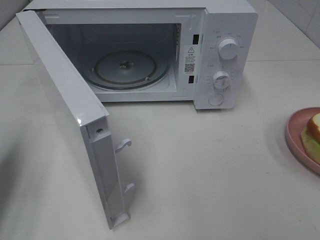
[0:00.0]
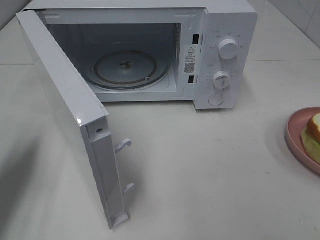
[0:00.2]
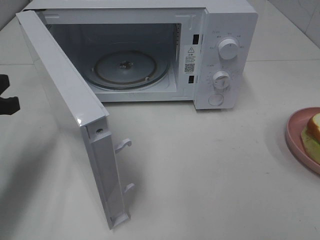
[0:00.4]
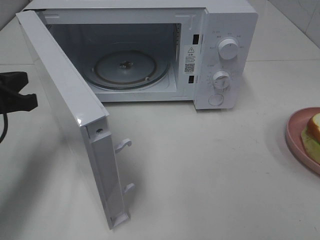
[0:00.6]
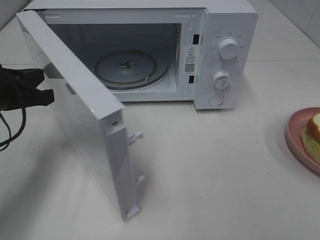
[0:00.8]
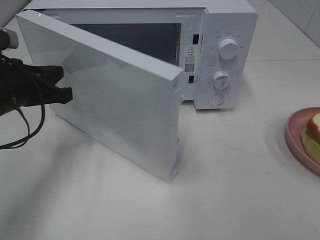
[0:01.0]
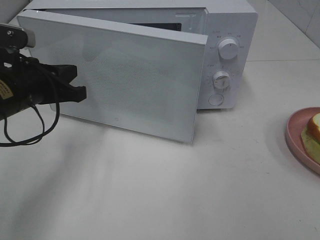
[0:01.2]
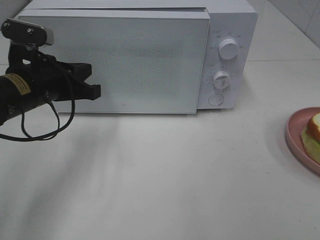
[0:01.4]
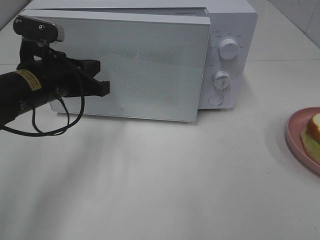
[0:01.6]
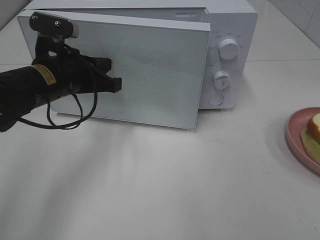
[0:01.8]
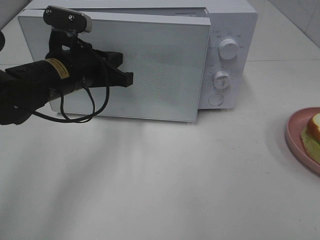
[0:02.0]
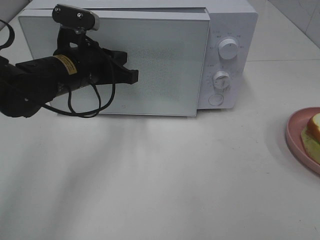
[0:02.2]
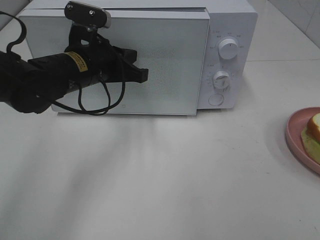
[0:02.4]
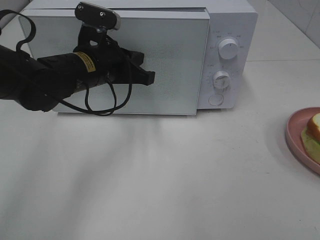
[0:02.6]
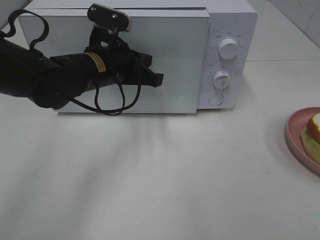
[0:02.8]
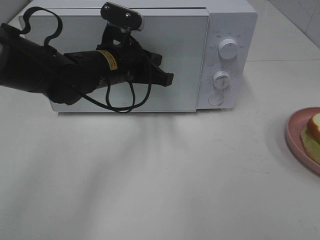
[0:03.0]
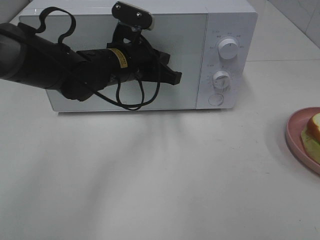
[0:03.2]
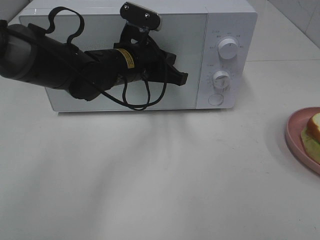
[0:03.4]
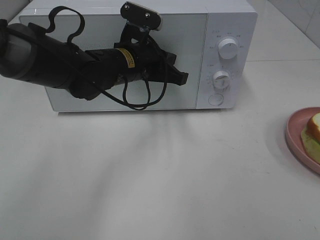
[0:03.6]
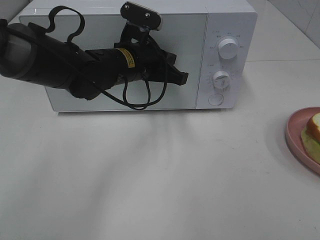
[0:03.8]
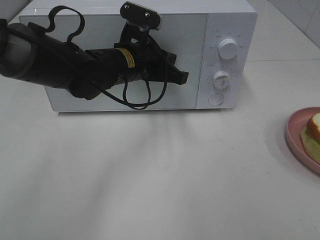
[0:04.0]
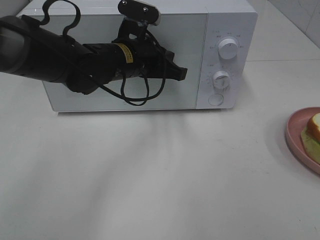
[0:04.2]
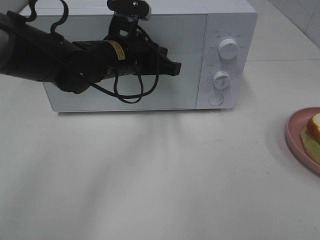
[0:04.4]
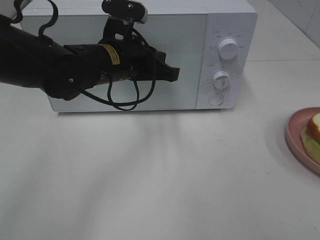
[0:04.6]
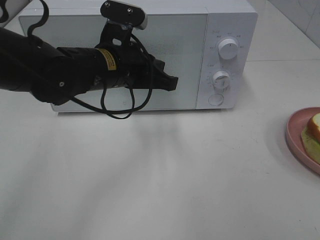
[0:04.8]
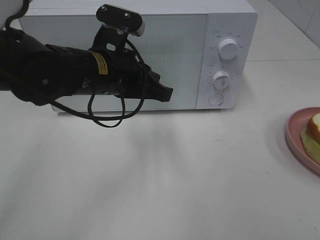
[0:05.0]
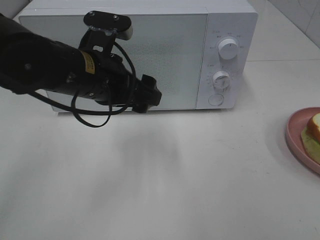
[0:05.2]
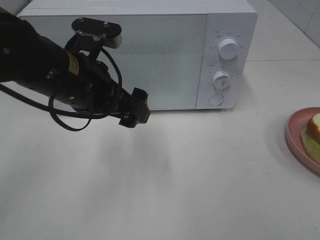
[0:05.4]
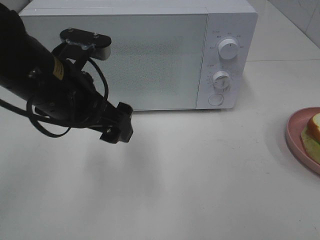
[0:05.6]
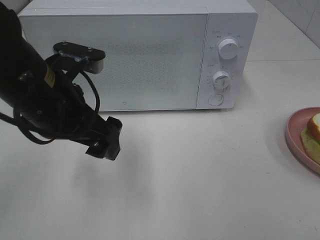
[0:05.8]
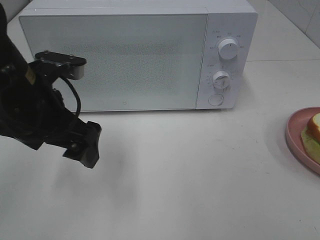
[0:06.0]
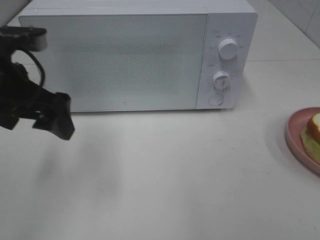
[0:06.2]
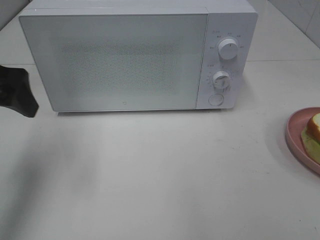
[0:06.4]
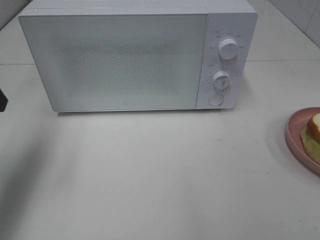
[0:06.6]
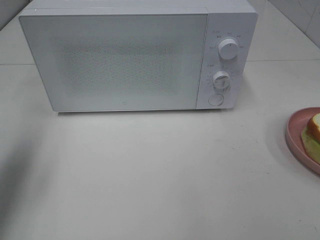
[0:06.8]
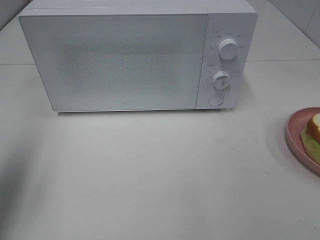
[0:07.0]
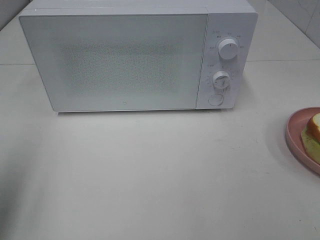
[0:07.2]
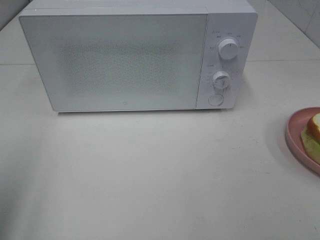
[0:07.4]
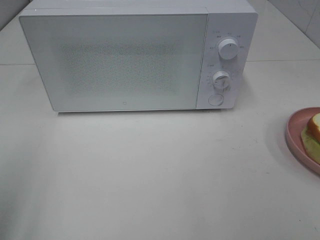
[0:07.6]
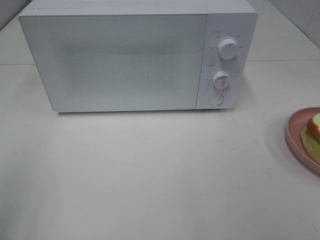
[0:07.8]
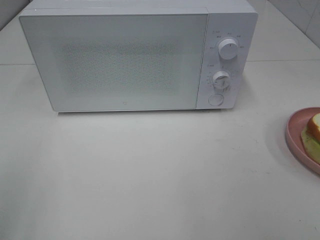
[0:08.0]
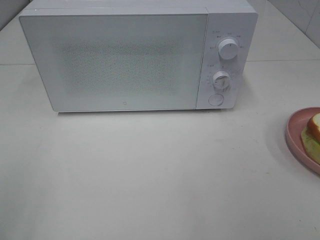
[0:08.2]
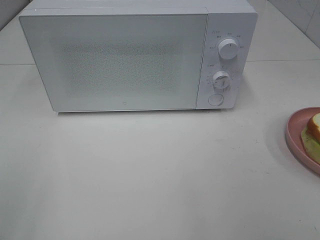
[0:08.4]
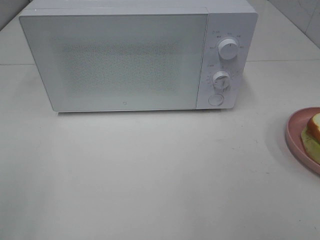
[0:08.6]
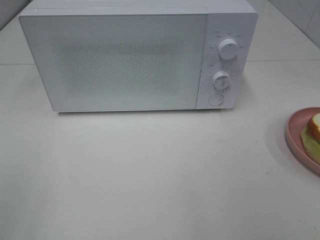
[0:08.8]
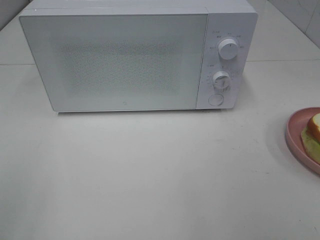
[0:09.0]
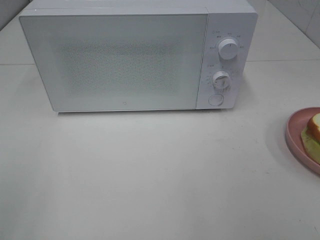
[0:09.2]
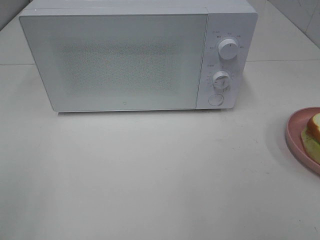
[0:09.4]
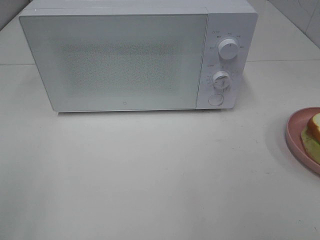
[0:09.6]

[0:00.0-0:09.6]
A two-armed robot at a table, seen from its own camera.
Task of the whole recording: Heat Sandwich.
Step, 0:00.0 to 0:04.6: Left hand: close the microwave door.
0:00.0 to 0:01.6: The left gripper travels to the right and forward by some 20 cm.
0:01.6 to 0:03.2: The left gripper shifts roughly 15 cm to the right and forward.
0:03.2 to 0:04.8: The left gripper goes approximately 5 cm backward.
0:04.8 to 0:06.4: The left gripper shifts approximately 20 cm to the left and upward, and opens up.
0:06.4 to 0:08.0: The left gripper travels backward by about 25 cm.

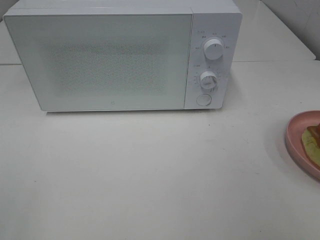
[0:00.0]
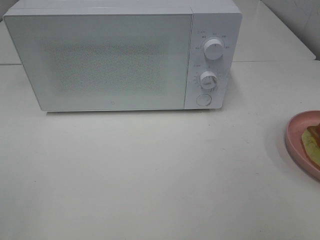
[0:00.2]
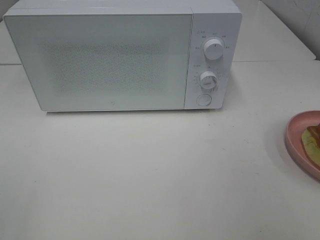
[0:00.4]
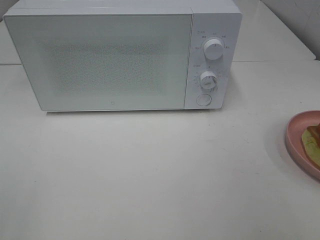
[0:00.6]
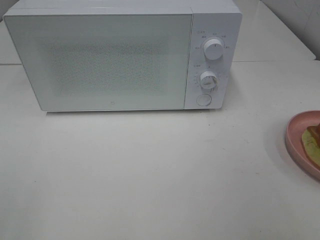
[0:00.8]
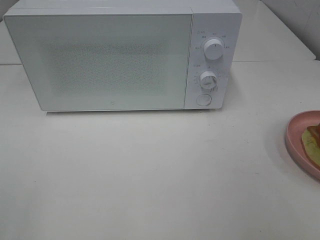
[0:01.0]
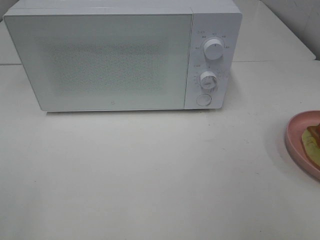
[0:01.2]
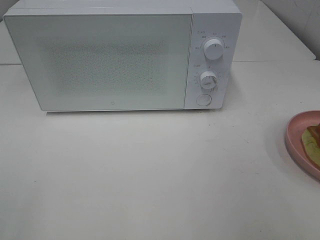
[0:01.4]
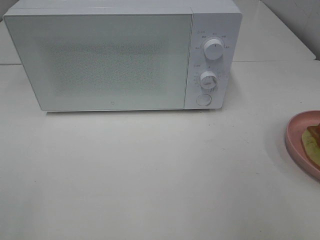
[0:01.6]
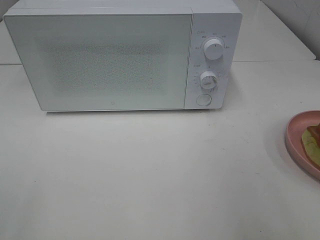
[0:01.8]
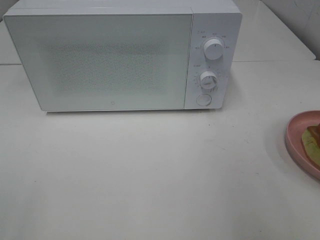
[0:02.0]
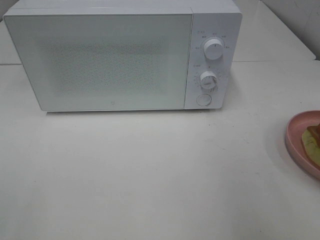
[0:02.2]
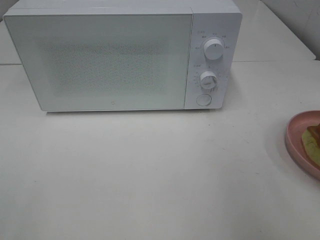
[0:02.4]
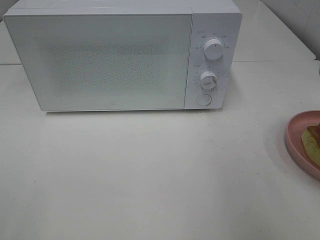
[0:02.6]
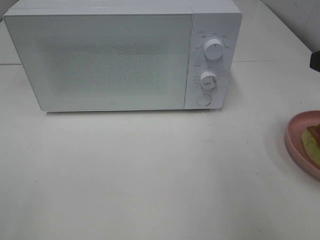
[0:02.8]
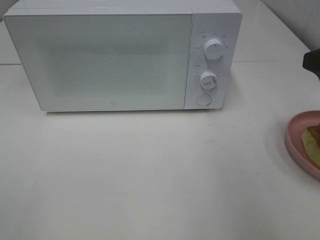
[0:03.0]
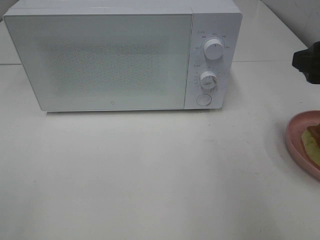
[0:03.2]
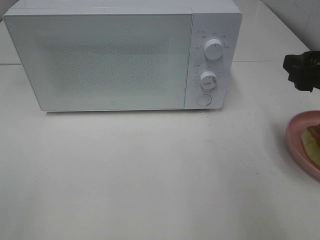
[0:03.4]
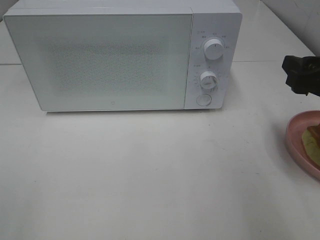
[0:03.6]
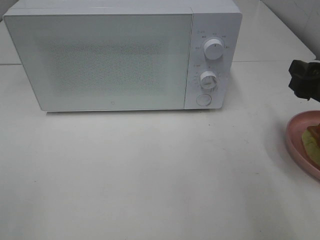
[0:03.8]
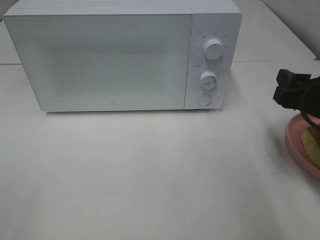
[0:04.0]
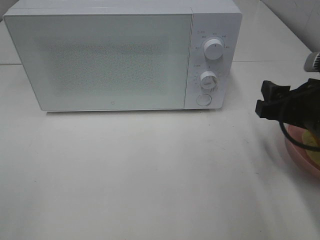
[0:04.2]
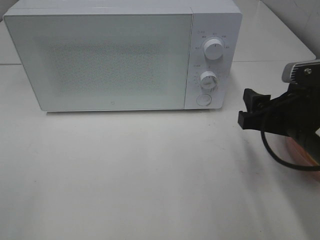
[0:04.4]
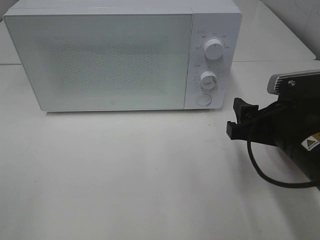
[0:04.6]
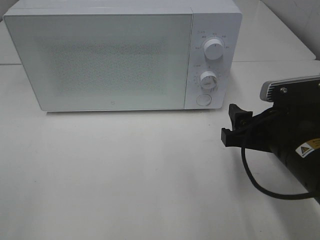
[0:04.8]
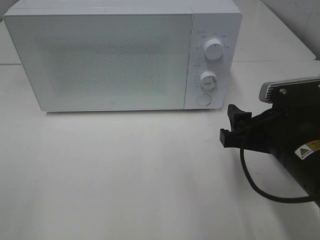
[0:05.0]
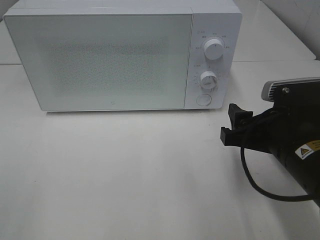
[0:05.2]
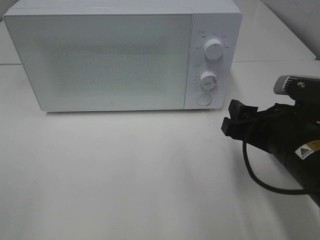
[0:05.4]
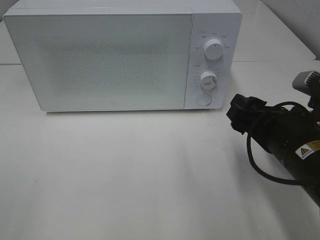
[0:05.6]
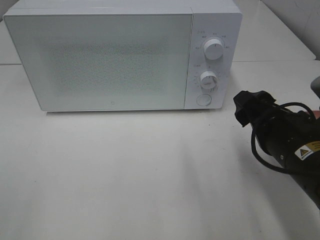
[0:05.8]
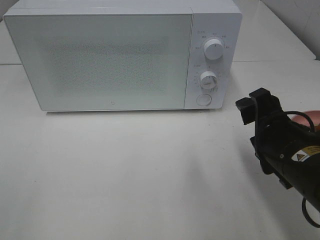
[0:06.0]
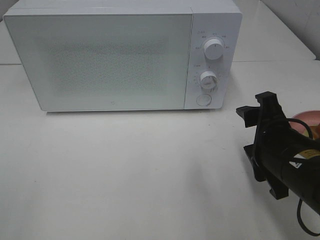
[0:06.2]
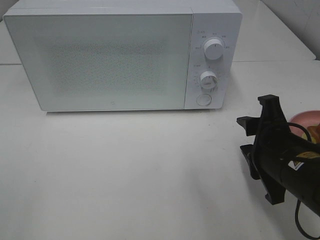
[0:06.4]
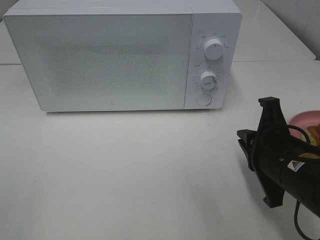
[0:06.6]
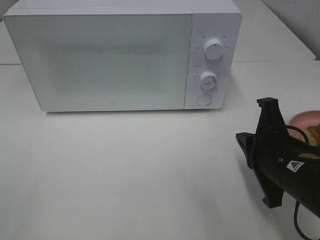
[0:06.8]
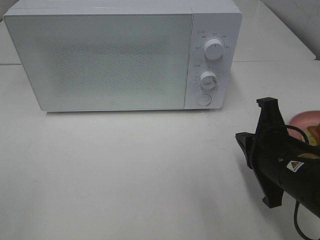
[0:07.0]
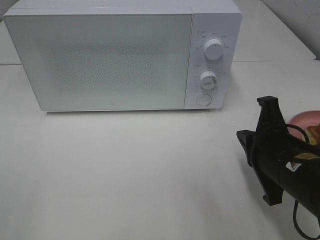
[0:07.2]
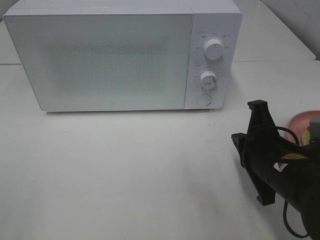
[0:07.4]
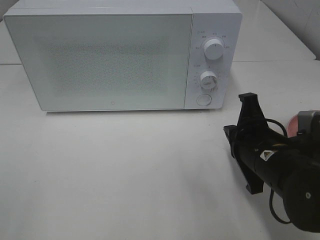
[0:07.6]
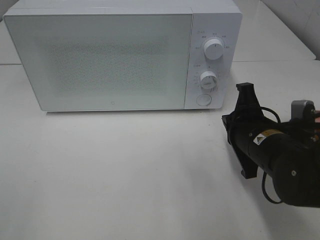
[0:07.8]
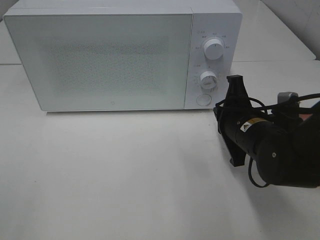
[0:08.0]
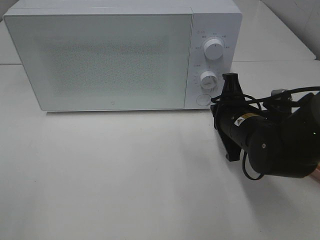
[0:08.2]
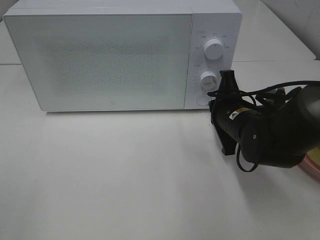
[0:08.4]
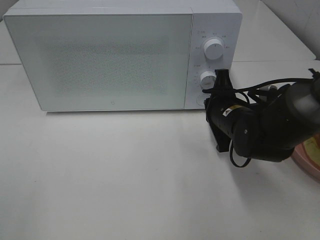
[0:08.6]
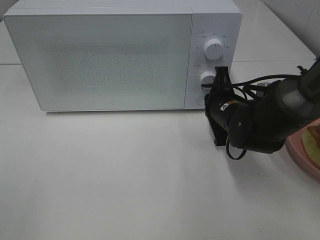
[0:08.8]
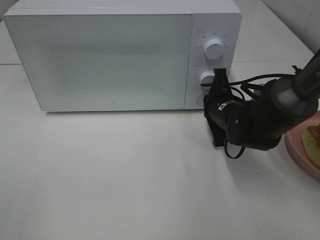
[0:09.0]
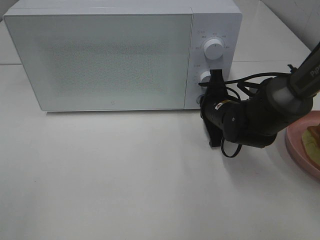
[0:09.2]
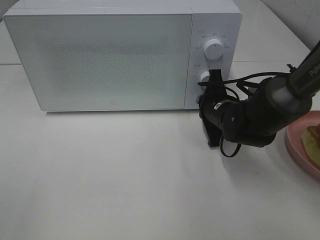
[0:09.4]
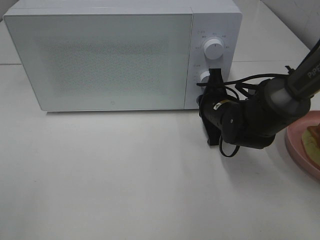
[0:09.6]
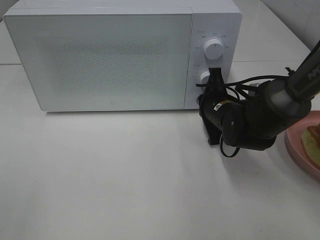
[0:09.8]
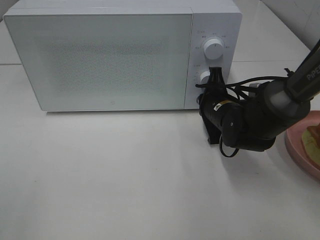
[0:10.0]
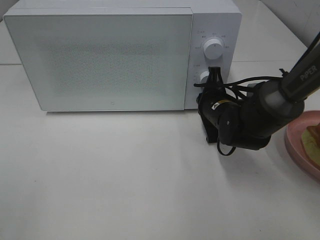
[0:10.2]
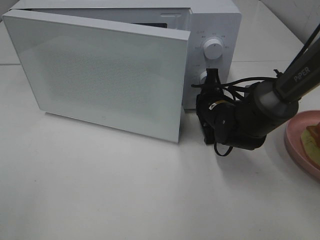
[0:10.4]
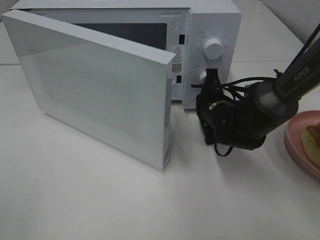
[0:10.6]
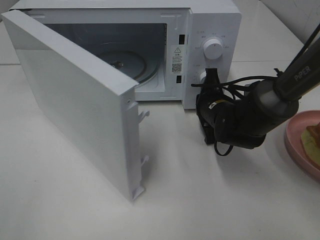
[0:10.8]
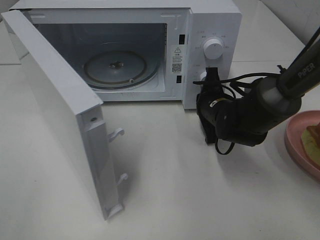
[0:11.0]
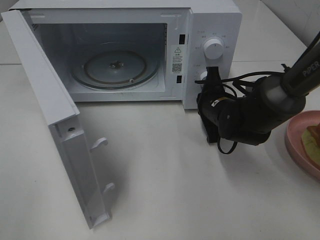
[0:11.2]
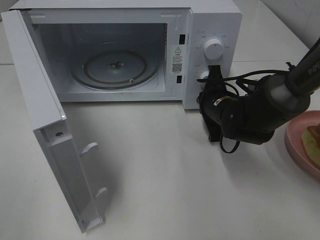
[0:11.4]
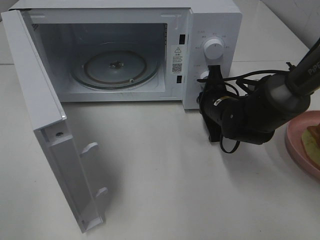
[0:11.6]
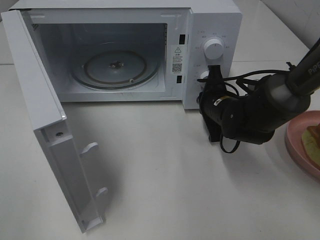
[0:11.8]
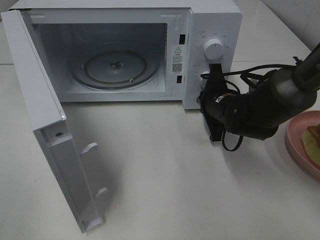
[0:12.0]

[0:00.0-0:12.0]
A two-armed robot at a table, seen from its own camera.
Task of the whole recording: Heat Sandwich.
0:03.0 to 0:04.4: The right gripper moves downward and to the left, about 10 cm.
0:06.0 to 0:07.6: The right gripper closes.
0:07.6 to 0:09.0: The right gripper goes approximately 15 cm forward.
0:09.0 to 0:10.4: The grippers stay close to where they were, moving slightly.

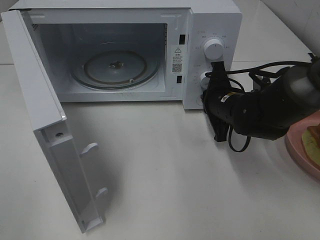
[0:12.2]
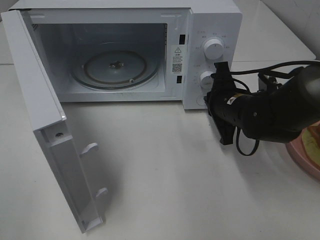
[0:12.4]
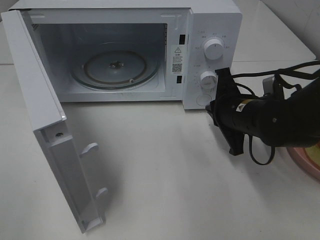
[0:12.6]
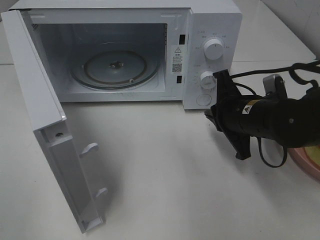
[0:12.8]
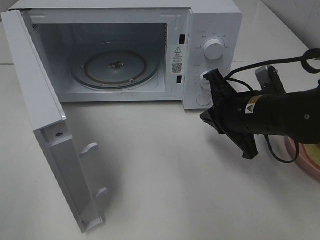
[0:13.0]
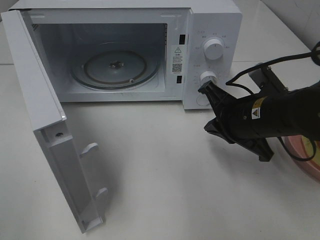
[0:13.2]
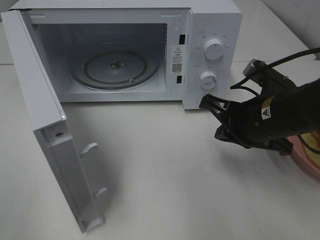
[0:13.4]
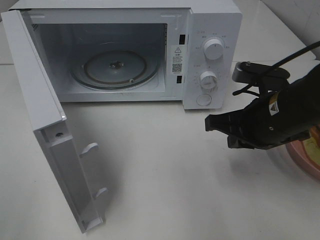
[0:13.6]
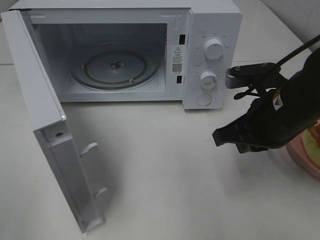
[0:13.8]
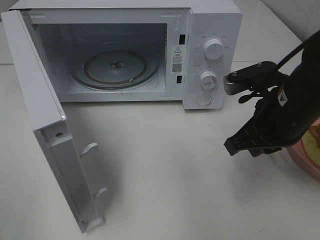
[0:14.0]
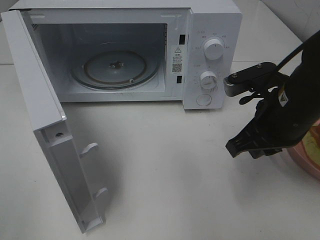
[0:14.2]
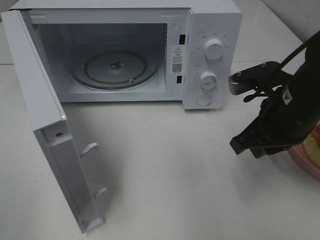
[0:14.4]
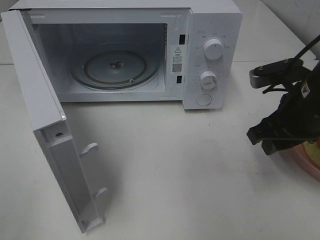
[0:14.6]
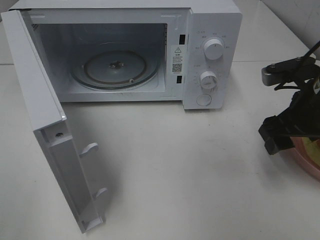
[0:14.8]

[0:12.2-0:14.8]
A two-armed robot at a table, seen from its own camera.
Task of the whole recording: Heat Sandwich.
0:12.2 to 0:13.4: The right gripper travels backward and upward by roughly 10 cm.
0:13.4 to 0:14.8: The right gripper travels to the right by roughly 10 cm, and opens up.
